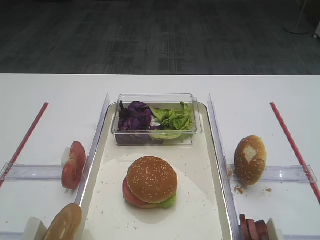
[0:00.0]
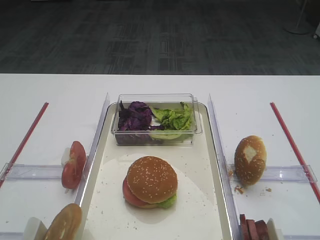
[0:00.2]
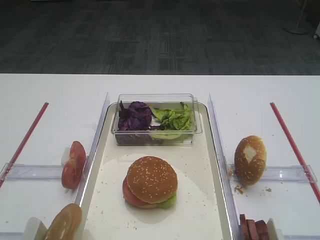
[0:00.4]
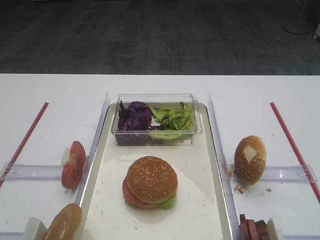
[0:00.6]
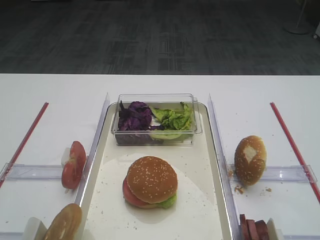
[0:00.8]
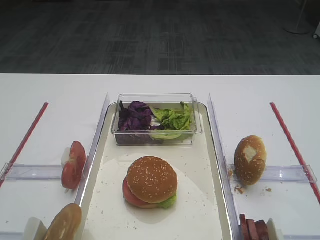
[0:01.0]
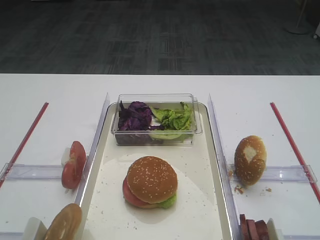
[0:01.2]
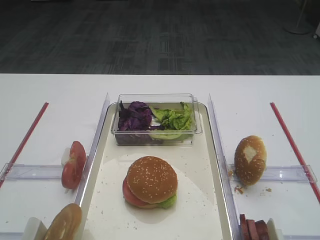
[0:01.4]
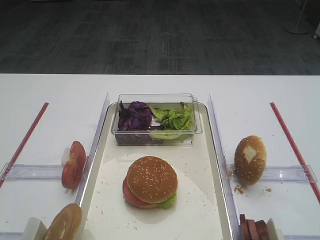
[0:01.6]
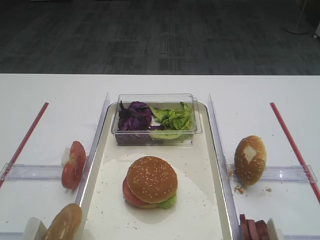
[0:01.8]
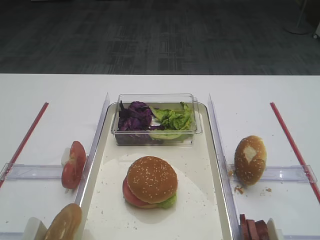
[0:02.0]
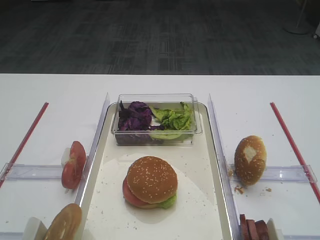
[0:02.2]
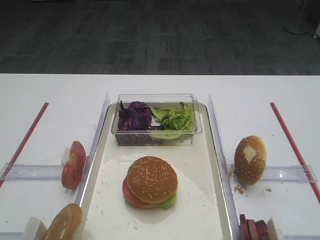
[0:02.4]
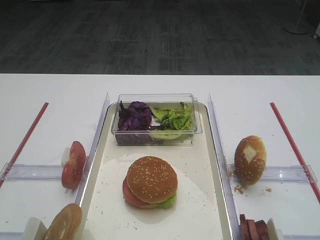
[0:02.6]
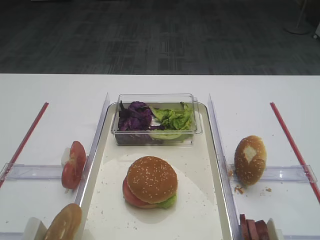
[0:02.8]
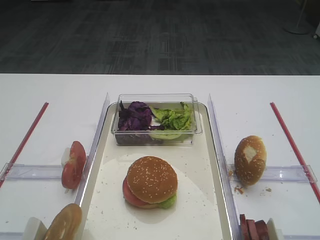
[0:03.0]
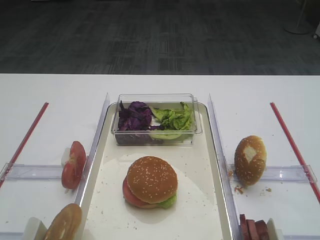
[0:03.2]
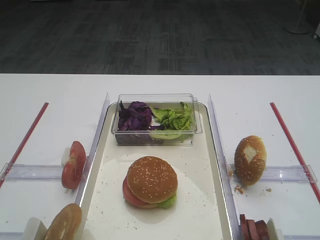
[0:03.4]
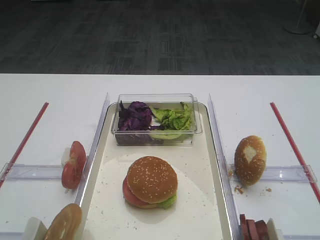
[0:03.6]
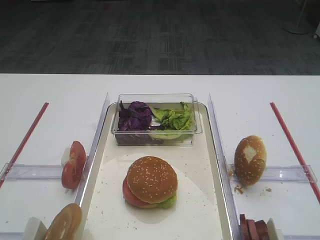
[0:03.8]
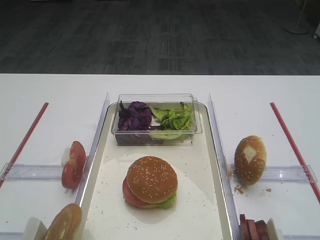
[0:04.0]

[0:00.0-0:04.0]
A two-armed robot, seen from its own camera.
0.0 to 4.0 s: Neither gripper changes place.

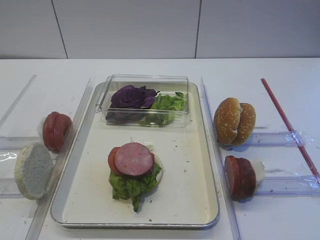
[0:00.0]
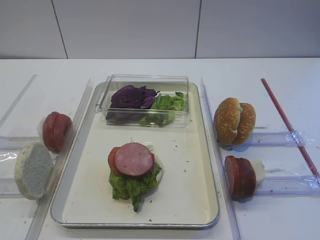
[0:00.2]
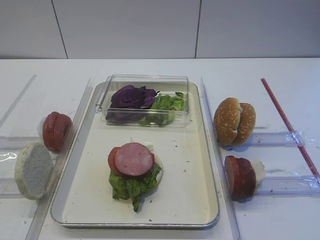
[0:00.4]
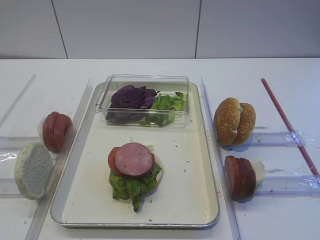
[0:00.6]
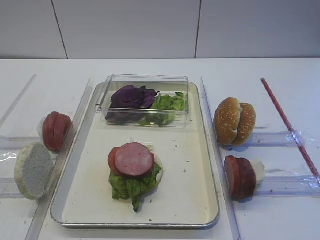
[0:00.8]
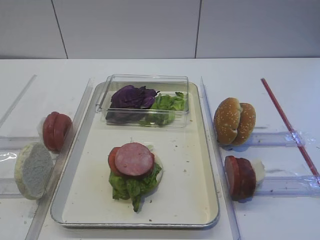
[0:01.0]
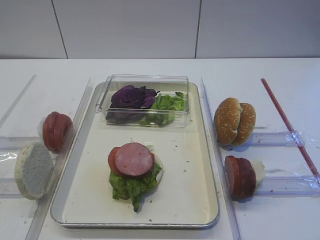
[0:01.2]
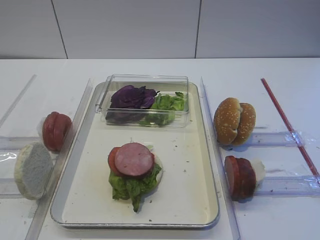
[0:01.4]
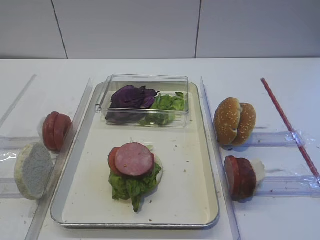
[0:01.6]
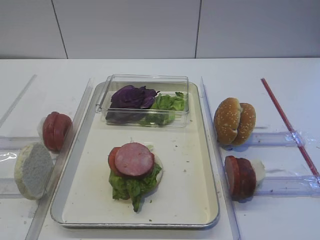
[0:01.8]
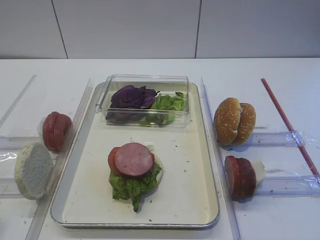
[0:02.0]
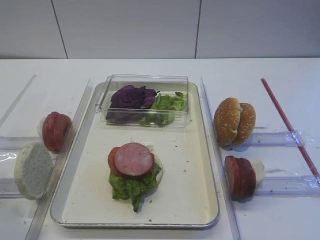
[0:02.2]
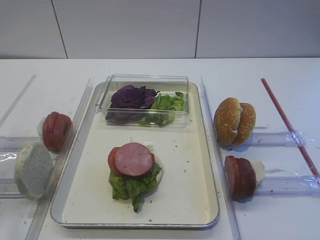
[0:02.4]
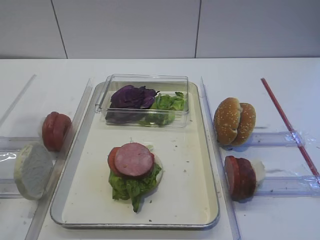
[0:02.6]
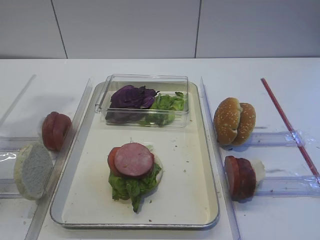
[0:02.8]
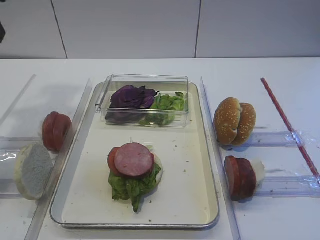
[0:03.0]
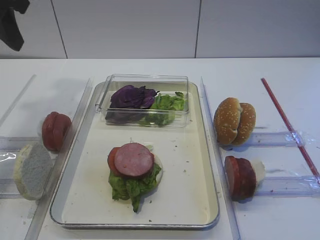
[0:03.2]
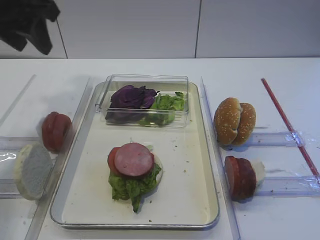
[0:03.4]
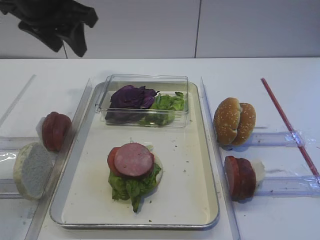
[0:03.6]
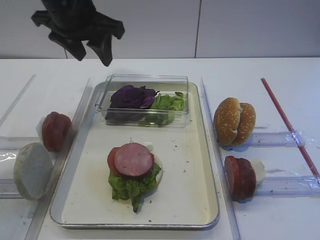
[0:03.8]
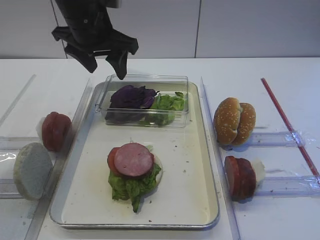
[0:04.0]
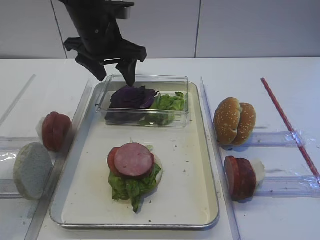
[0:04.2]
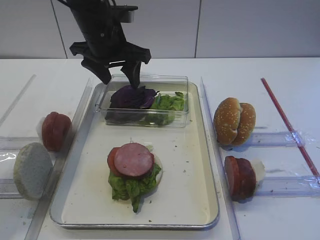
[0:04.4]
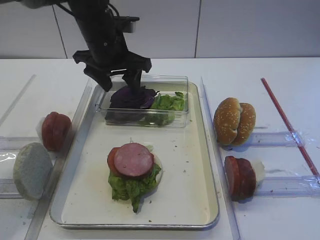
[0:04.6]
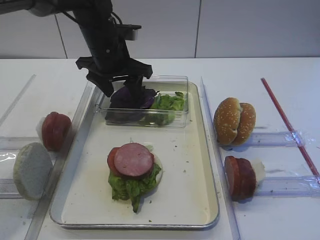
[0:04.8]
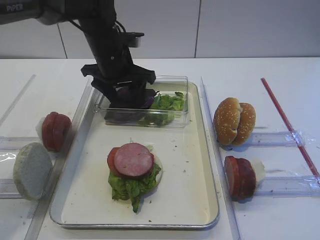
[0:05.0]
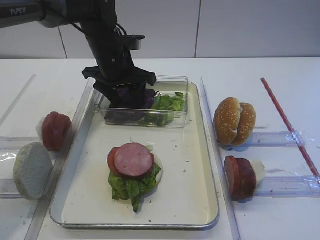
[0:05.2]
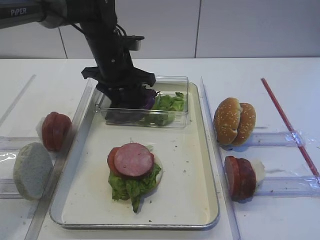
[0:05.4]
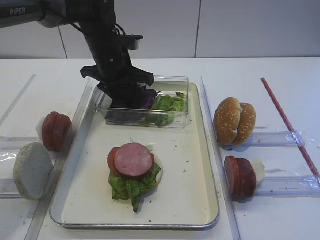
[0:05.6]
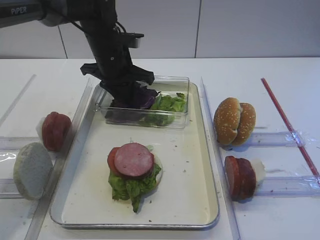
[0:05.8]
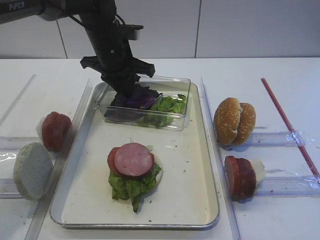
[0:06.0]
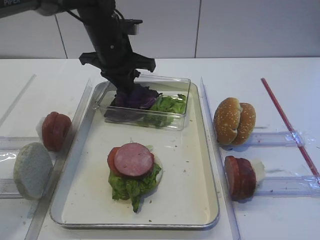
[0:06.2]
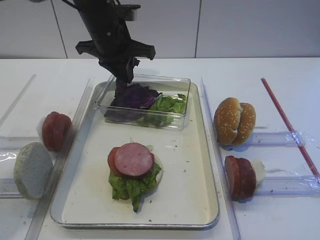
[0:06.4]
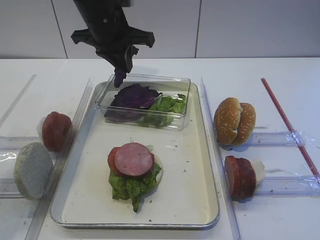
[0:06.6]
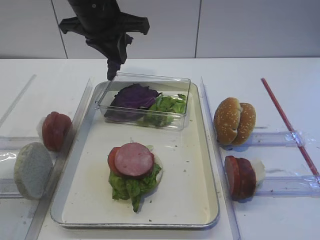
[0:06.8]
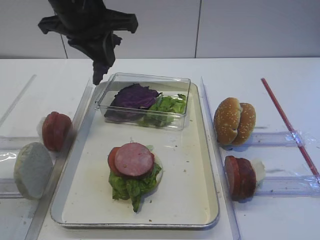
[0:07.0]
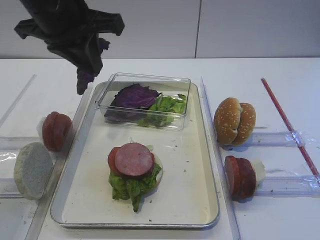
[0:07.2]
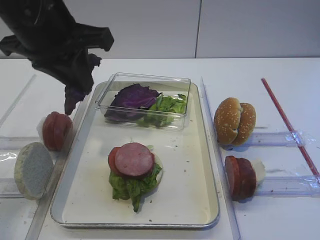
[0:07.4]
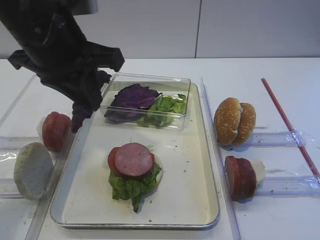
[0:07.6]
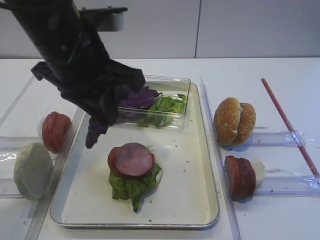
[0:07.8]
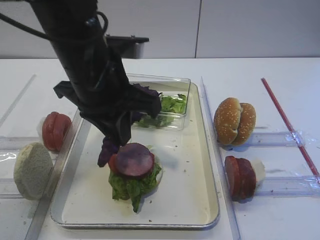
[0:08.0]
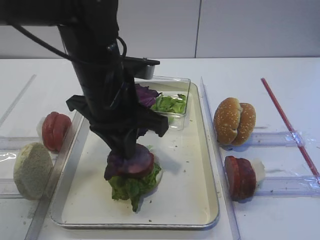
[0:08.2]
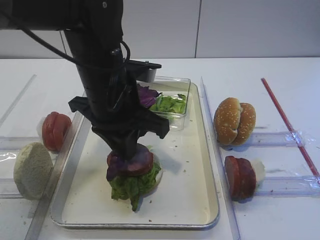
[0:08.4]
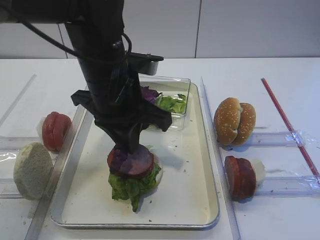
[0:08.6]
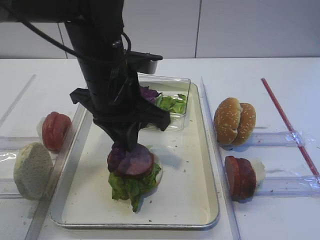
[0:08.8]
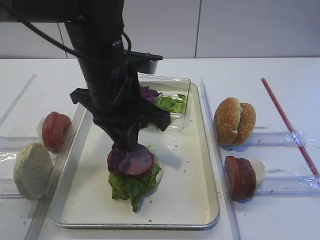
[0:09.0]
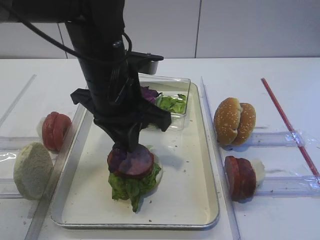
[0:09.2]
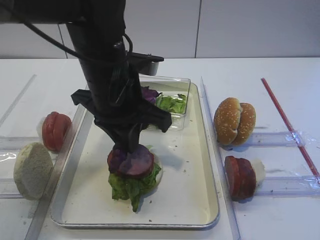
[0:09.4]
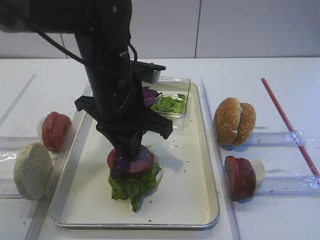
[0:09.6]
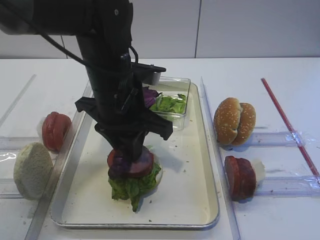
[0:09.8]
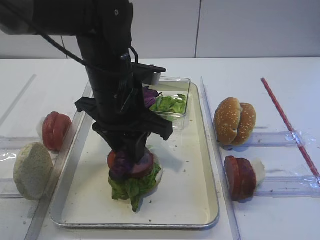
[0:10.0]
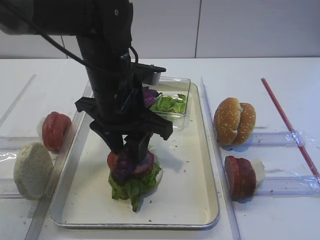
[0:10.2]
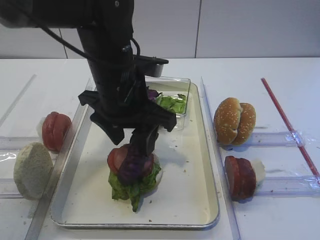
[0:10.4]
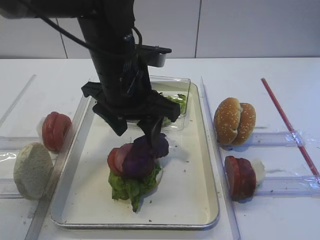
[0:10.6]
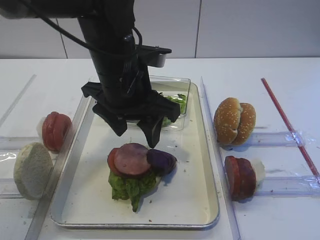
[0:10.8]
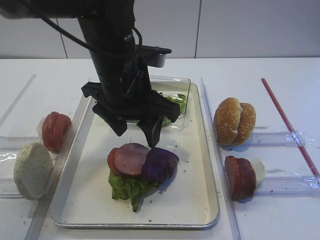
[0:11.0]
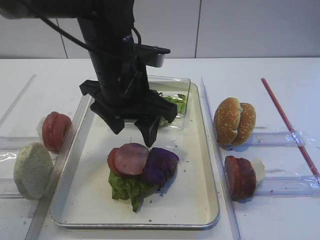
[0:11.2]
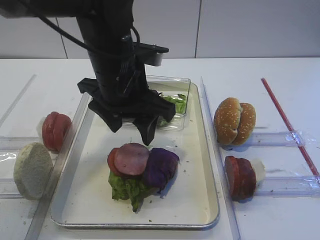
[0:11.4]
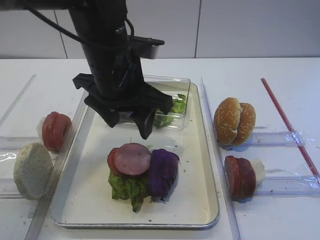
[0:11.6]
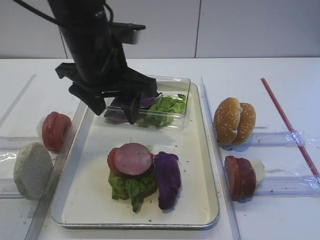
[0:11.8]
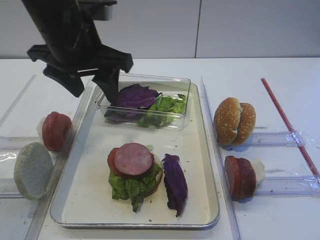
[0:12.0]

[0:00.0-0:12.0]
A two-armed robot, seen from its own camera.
Step, 0.0 to 6.6 s: Pick up the purple cabbage with the left gripper.
Step, 6.8 to 11.0 s: Place the purple cabbage on the cutlet with the left gripper.
1.6 to 3.0 s: The left gripper moves forward and upward, some 30 cm.
3.0 to 4.4 s: The left gripper shifts about 25 cm to the right, forward and downward, and opens.
4.4 to 6.0 s: The left gripper changes place by approximately 5 cm, and closes up.
6.0 to 7.6 s: The left gripper goes roughly 20 cm backward and upward.
7.6 to 9.0 s: The left gripper heads to the right and downward, covering some 10 cm.
9.0 to 10.4 s: The left gripper opens.
10.4 to 12.0 s: The left gripper is displaced upward and to the left by some 10 cm.

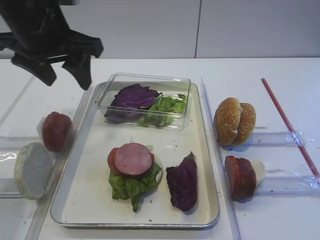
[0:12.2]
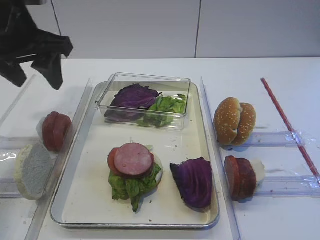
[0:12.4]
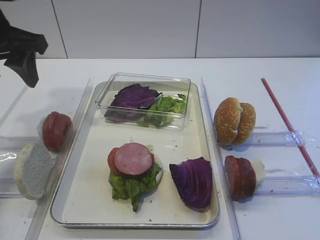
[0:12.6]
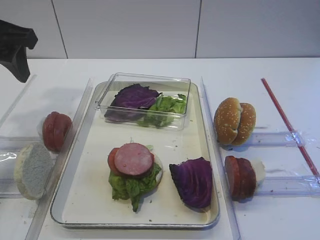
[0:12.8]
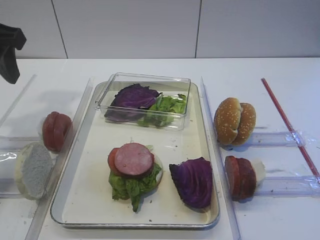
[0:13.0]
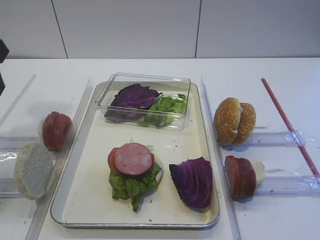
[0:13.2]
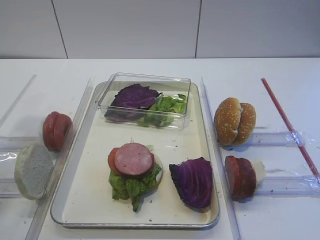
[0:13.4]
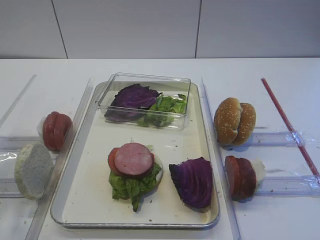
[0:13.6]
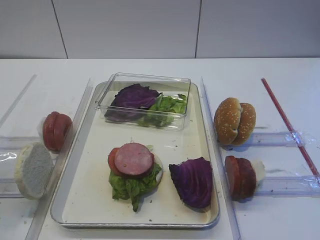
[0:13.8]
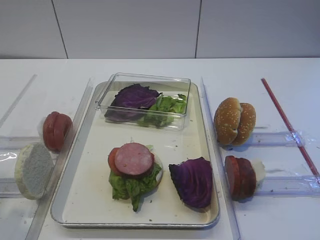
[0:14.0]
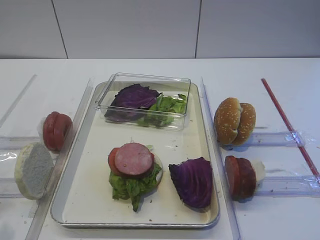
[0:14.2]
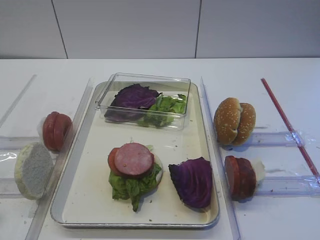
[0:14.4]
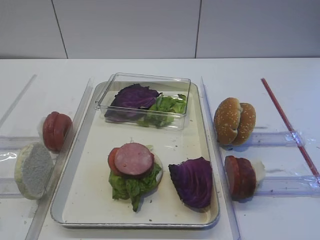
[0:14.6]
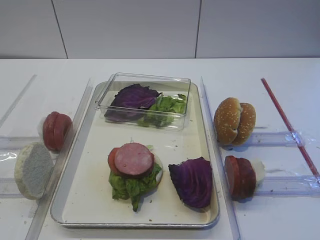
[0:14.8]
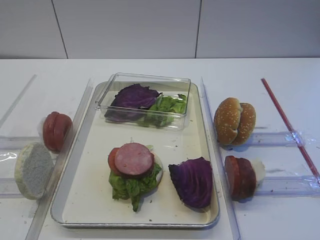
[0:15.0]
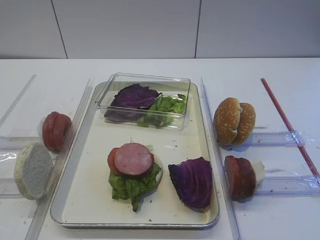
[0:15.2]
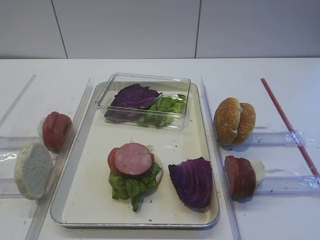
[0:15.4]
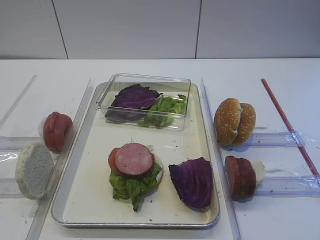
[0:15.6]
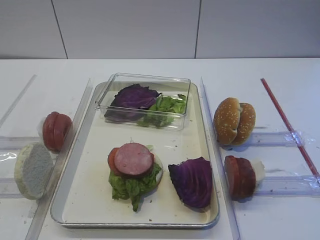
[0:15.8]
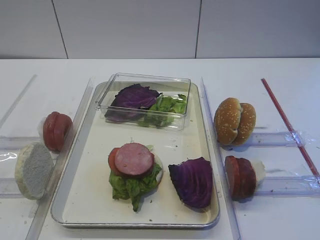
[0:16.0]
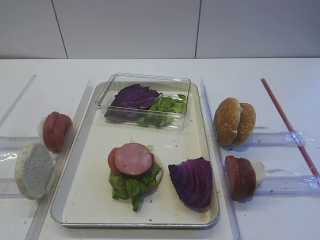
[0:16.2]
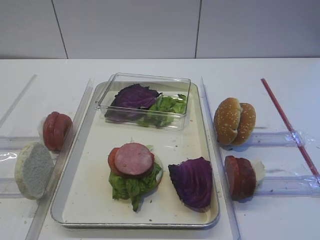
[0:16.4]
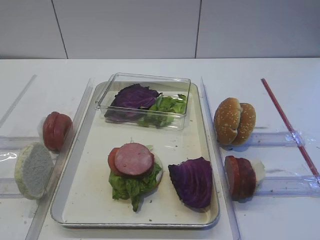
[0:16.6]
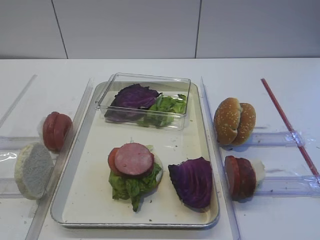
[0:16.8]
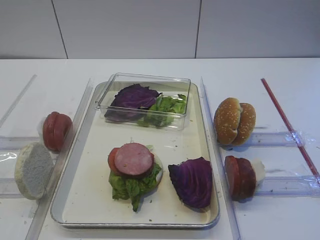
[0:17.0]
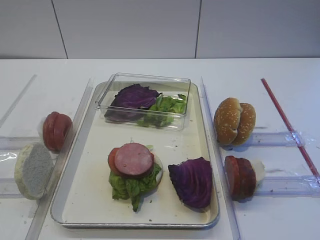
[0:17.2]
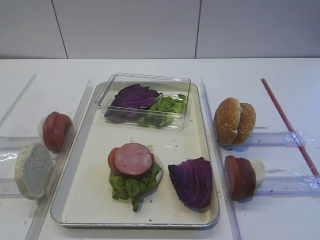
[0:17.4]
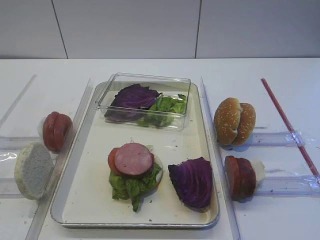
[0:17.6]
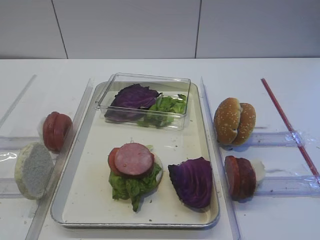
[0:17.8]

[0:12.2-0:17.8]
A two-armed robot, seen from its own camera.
12.2 to 13.6 s: The left gripper goes about 20 cm backward and to the left.
13.6 to 15.0 s: The left gripper heads backward and downward, covering approximately 15 cm.
16.4 to 17.8 s: Neither gripper changes place.

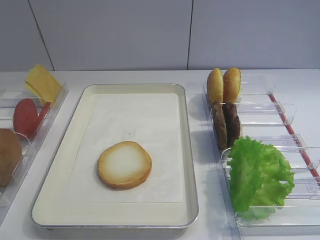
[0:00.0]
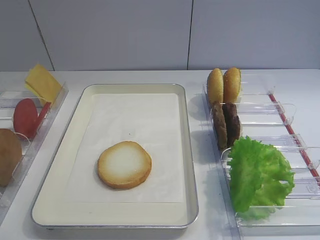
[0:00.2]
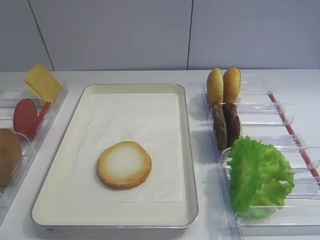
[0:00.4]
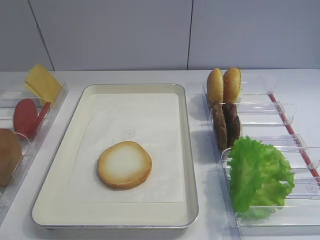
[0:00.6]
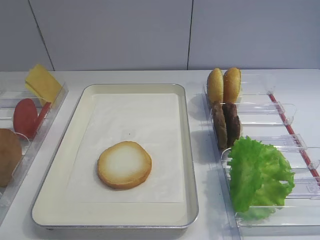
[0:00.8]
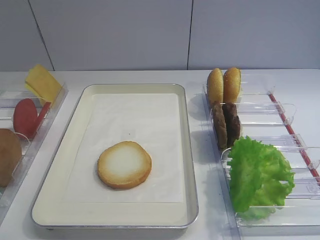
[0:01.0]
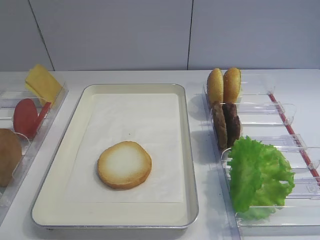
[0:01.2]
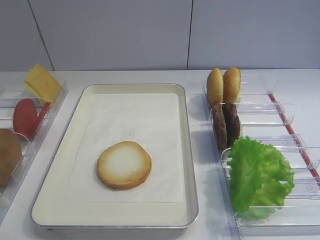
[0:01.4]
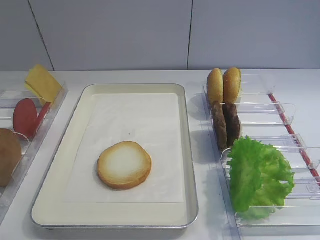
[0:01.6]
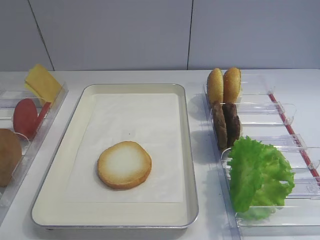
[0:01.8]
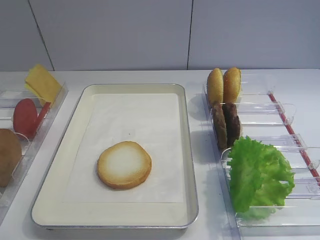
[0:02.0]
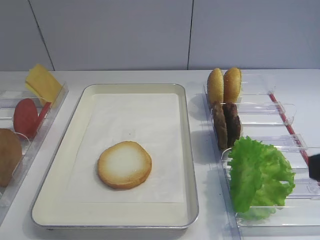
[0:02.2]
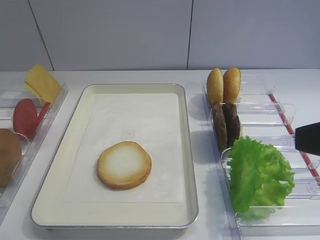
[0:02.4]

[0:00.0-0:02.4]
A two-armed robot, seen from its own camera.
1.2 to 2.4 s: The right gripper travels forward by approximately 10 cm, and opens its fingers.
